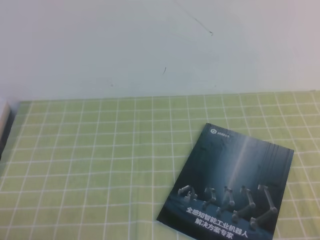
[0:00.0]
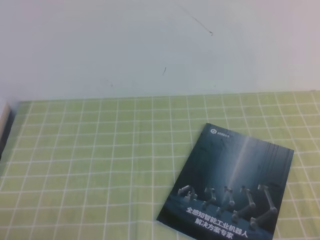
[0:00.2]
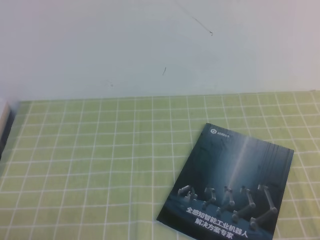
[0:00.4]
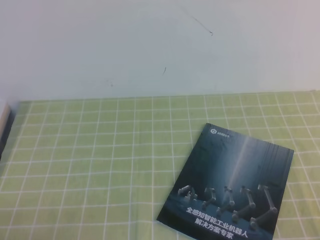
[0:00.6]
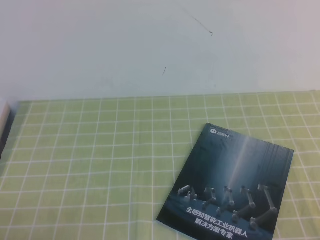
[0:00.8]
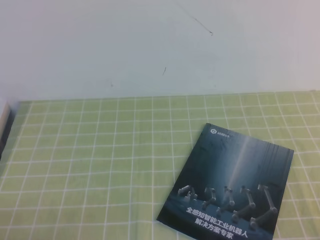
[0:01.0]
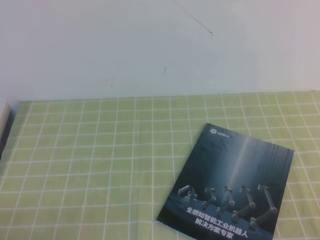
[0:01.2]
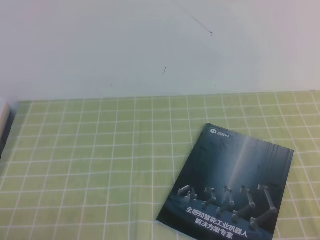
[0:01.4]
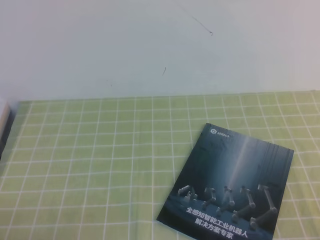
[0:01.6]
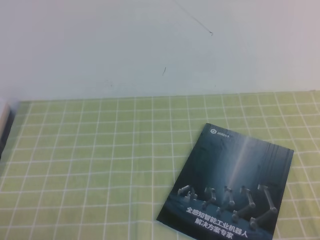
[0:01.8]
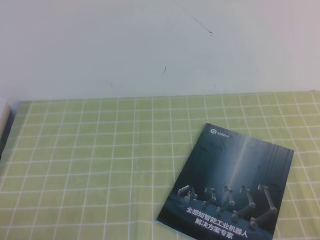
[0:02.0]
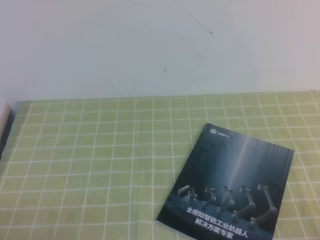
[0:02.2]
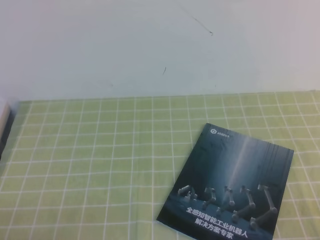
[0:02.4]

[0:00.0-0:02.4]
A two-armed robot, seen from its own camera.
Task of the whole recording: on the green tablecloth, hold the book with one hand and close it with the other.
0:00.0 to 0:01.2: The two grippers keep their place.
